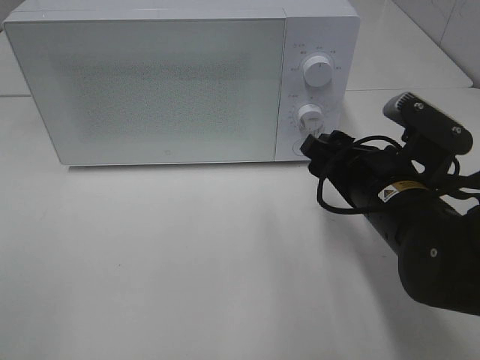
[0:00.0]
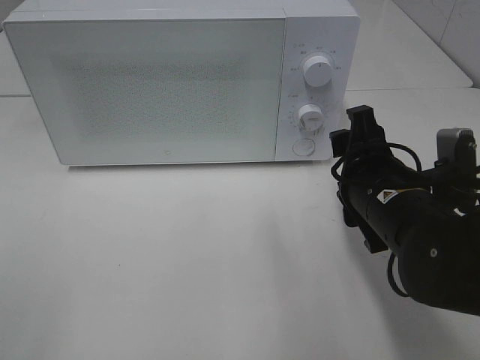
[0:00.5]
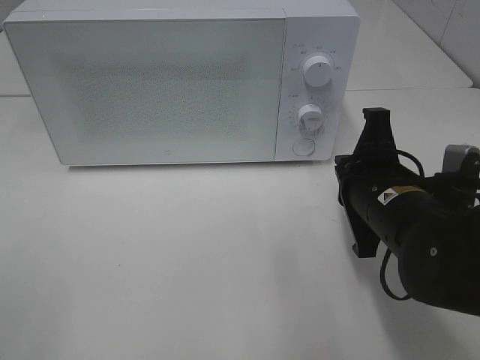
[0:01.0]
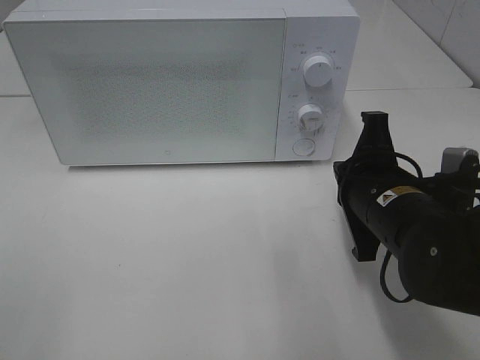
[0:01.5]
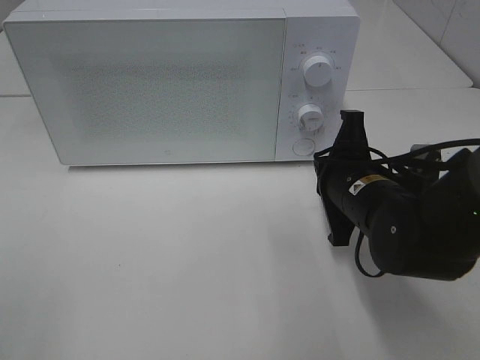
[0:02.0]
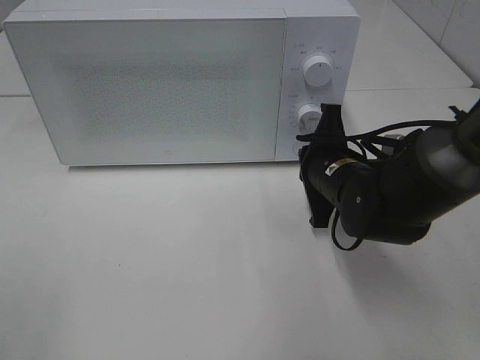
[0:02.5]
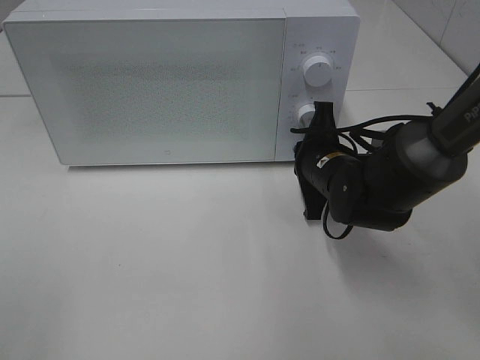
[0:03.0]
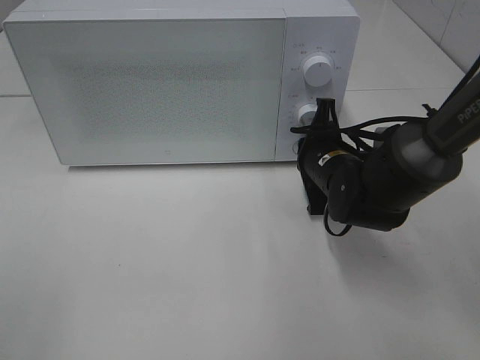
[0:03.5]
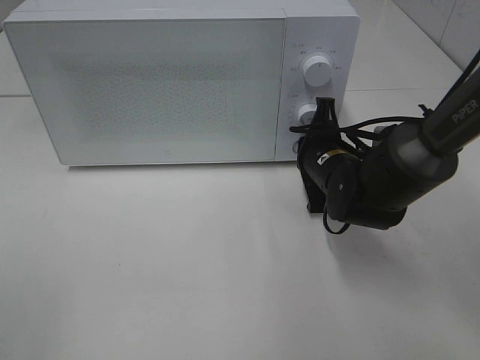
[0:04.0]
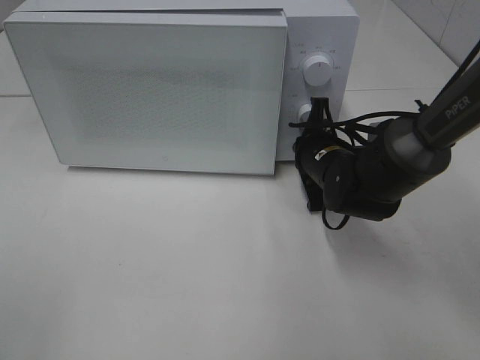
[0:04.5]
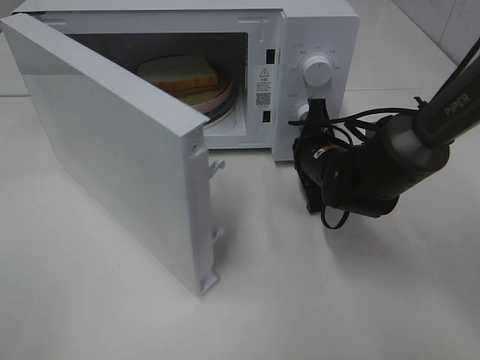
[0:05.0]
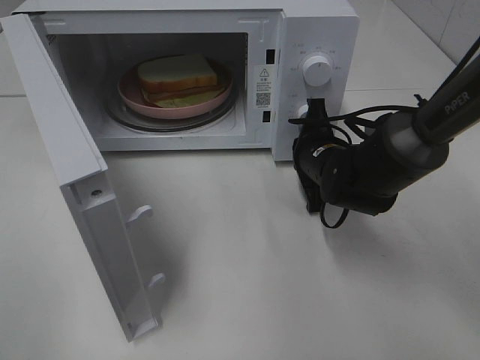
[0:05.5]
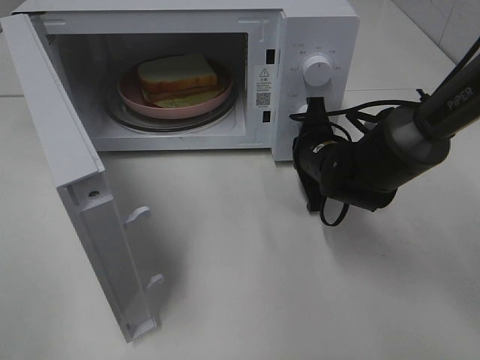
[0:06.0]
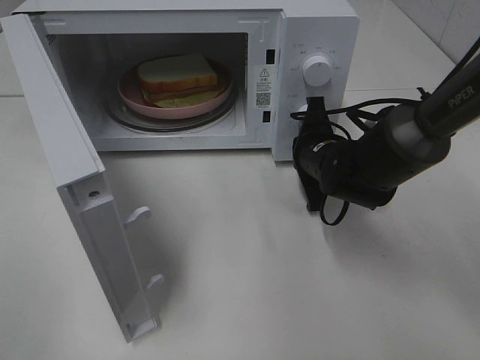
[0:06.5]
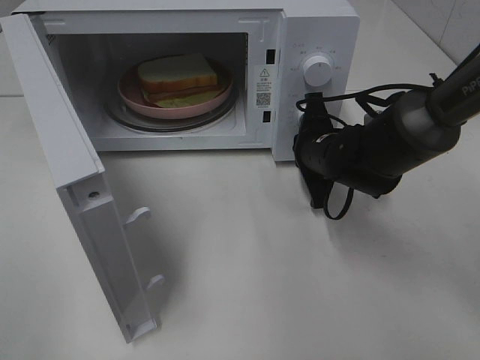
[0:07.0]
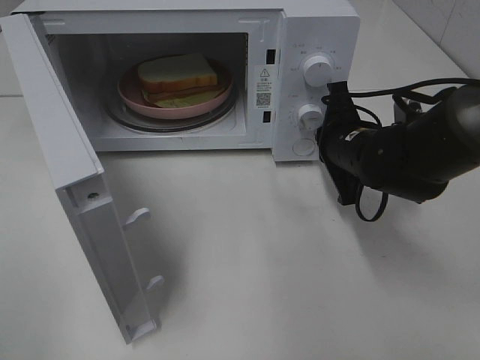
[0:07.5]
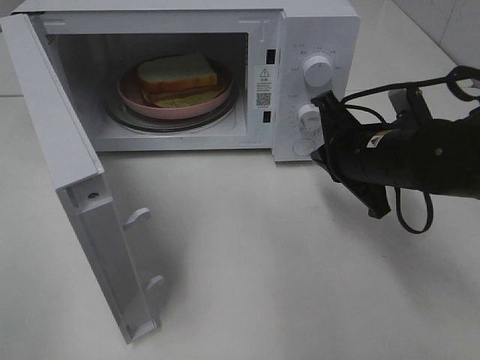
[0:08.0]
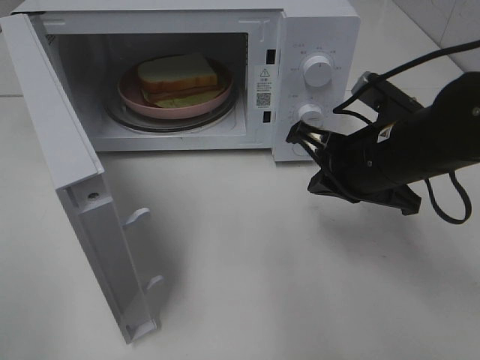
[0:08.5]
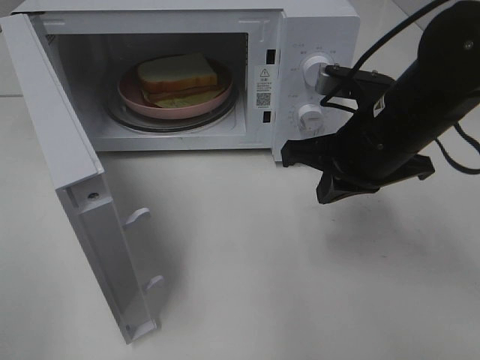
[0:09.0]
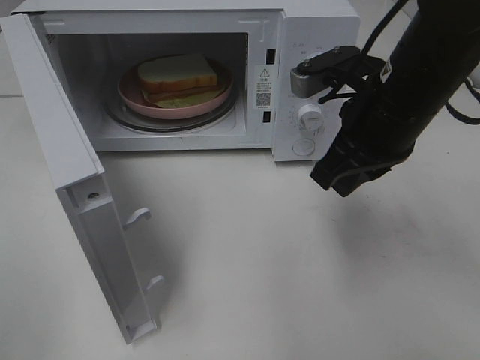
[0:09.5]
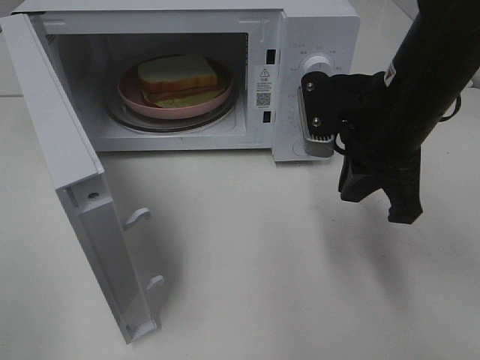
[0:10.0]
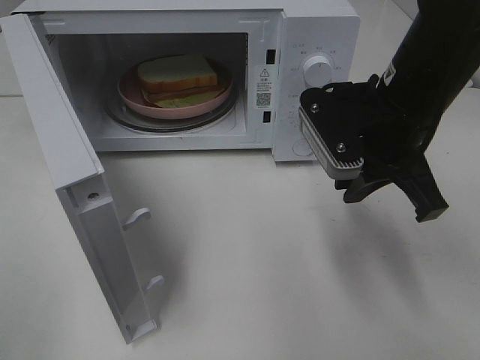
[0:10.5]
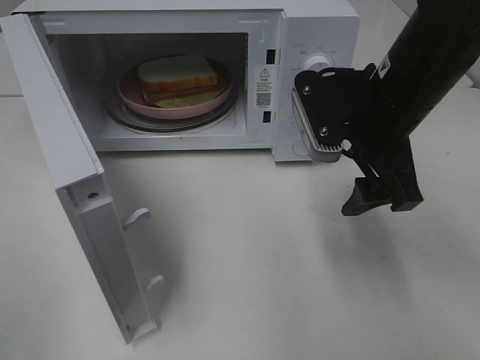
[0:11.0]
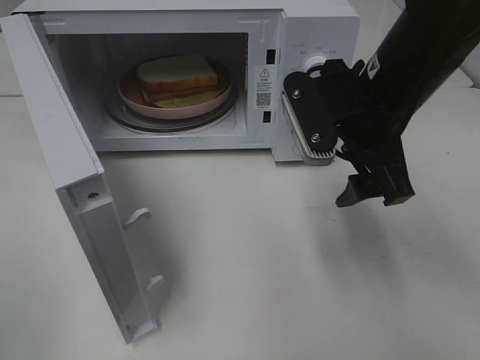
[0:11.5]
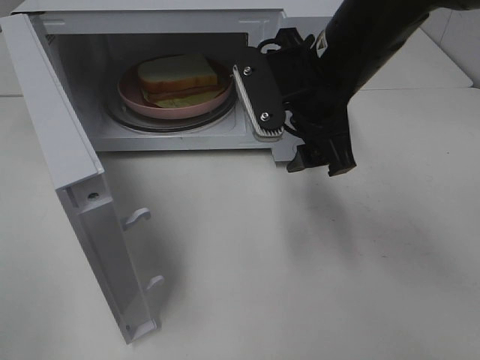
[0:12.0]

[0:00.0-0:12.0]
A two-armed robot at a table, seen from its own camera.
Task of the whole recording: Heat Sandwich.
Step, 0:00.0 to 0:07.5: Right hand: press the switch.
0:00.0 to 0:02.0: The right gripper closes its fingers.
0:02.0 to 0:04.0: The right gripper heads forward, covering roughly 10 cm.
0:06.0 to 0:08.0: The right gripper travels backward and upward by about 10 cm.
0:08.0 to 0:10.0: The right gripper moves upward, roughly 10 cm.
0:10.0 to 0:12.0: The right gripper heads to the left, covering roughly 5 cm, and opens its fingers.

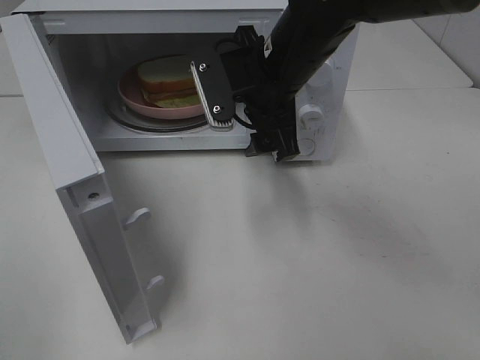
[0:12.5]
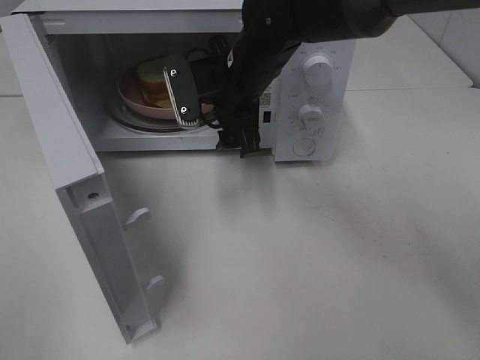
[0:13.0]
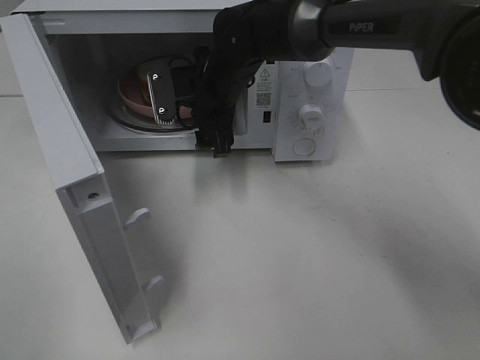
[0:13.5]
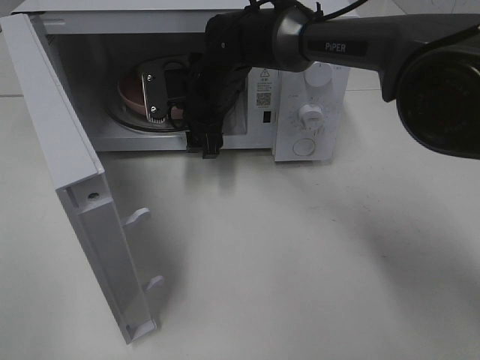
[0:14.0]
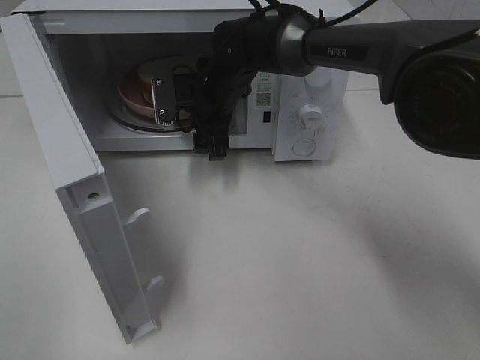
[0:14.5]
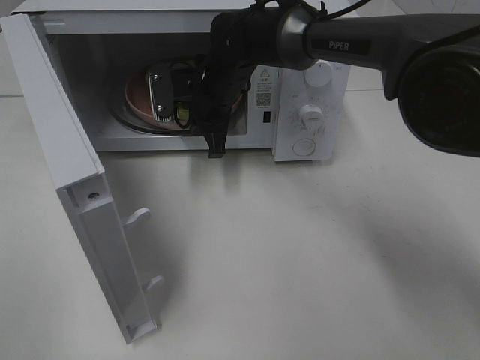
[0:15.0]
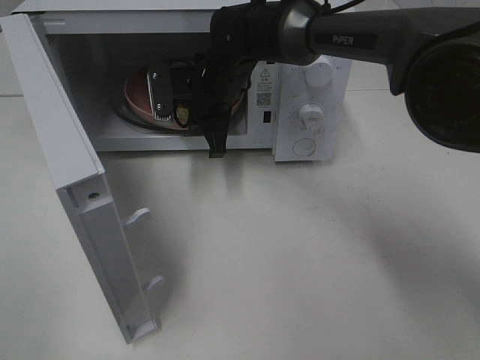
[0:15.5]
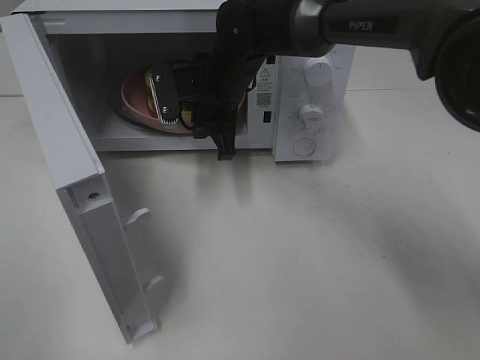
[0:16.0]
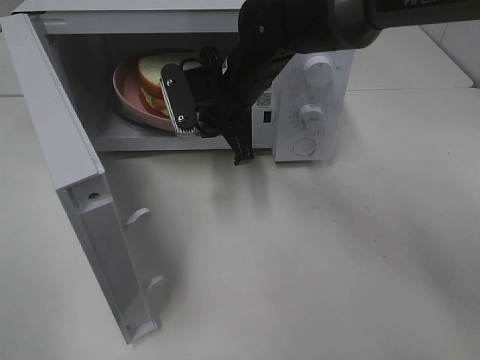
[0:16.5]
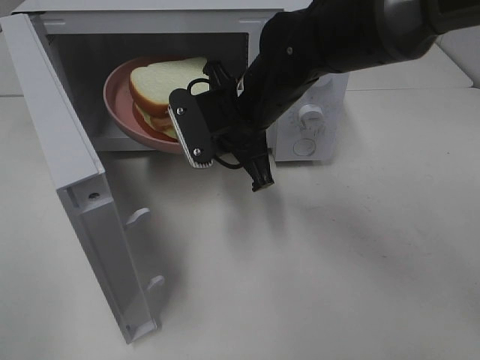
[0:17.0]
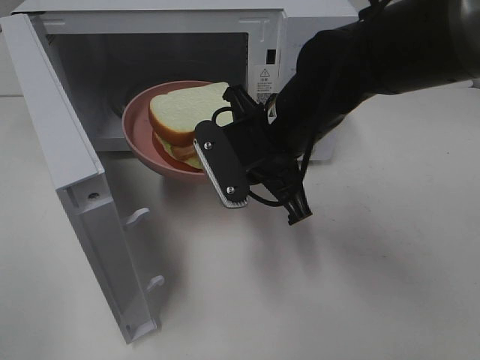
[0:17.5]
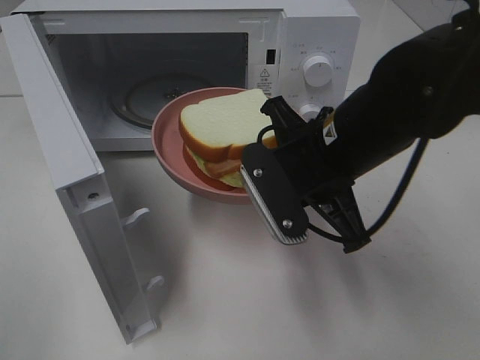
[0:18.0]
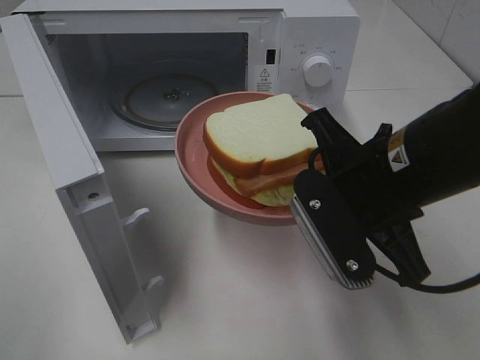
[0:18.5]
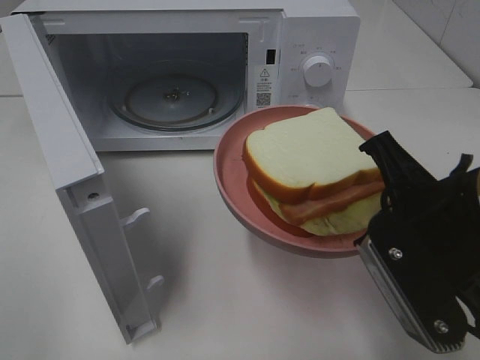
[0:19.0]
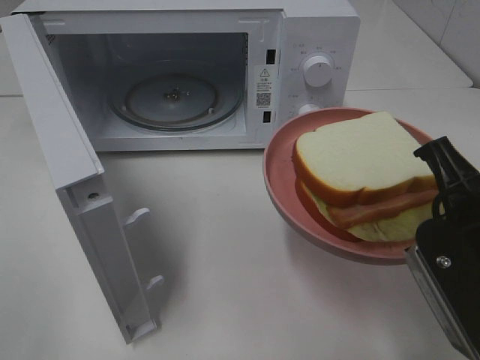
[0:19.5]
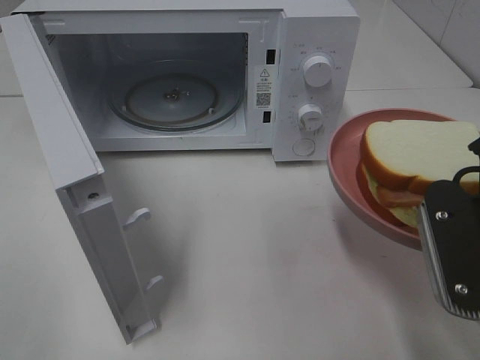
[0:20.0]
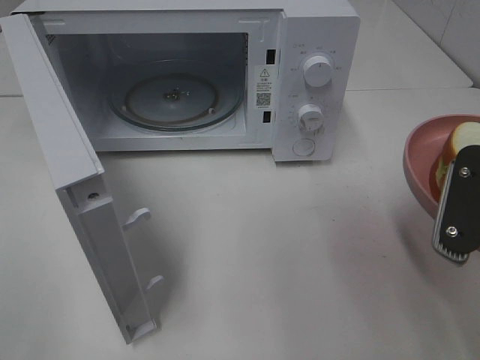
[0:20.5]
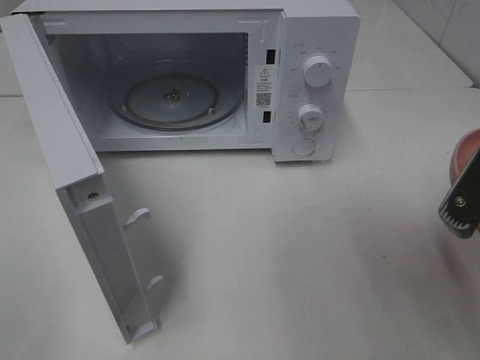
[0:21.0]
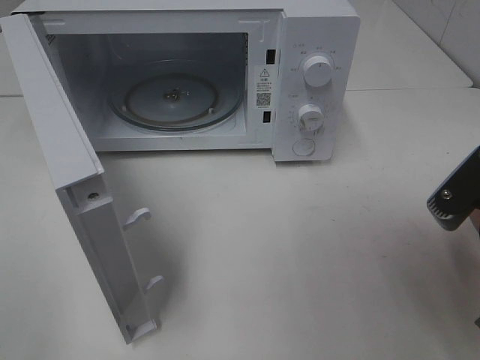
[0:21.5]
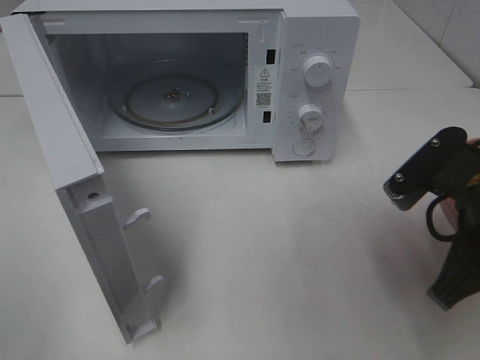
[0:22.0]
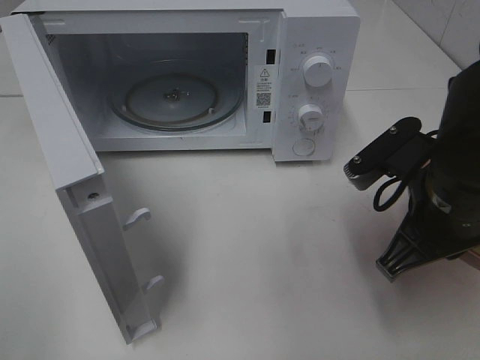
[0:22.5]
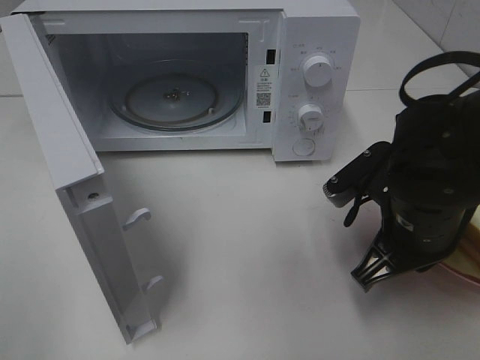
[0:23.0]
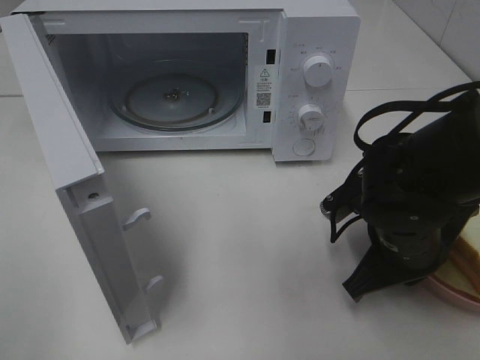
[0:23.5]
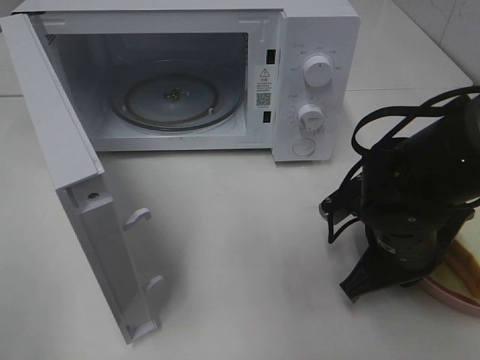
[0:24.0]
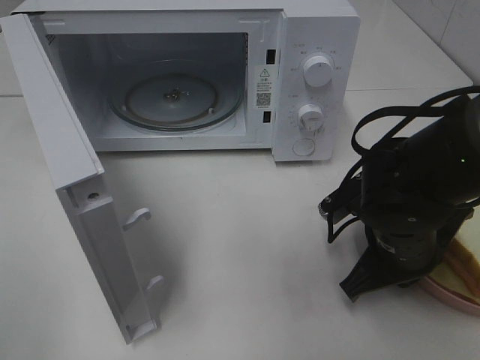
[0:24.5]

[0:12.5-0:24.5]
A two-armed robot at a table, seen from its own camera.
Task of the whole recording: Heat Sandwich.
Step, 0:12.5 to 0:15.0: Right hand: grab the plate with the sandwich.
0:12.5 to 0:14.5: The right gripper moves forward, downward and to the left, approximately 15 cm.
0:14.5 to 0:16.5: The right gripper shifts roughly 5 cm backward, and closes its fingers.
0:16.5 to 0:18.5: The right gripper is displaced backward and to the right by roughly 20 cm.
0:18.5 to 0:20.5: The right gripper travels to the right and backward by approximately 10 cm.
0:20.5 to 0:22.5: The right gripper travels forward by roughly 5 cm.
0:22.5 to 0:24.5: The right gripper goes some 10 cm downward.

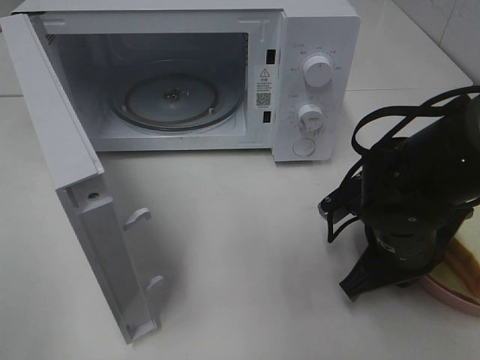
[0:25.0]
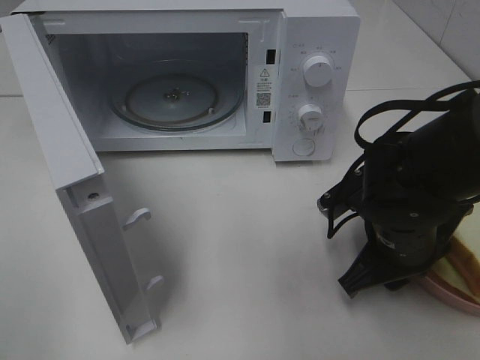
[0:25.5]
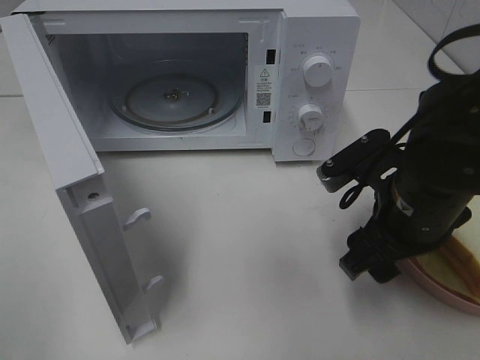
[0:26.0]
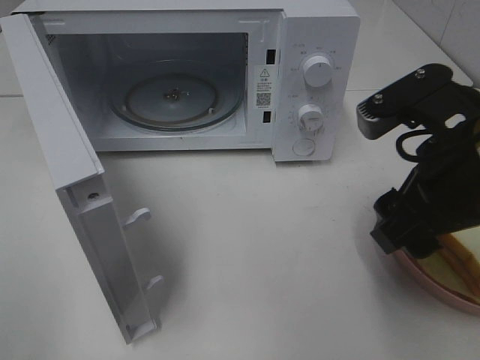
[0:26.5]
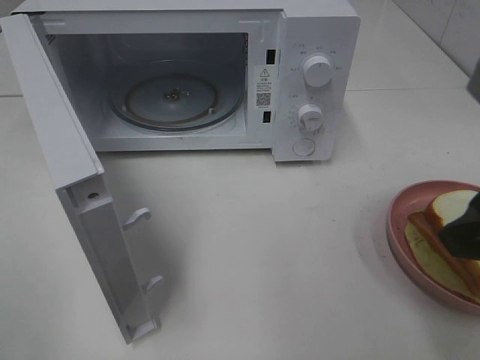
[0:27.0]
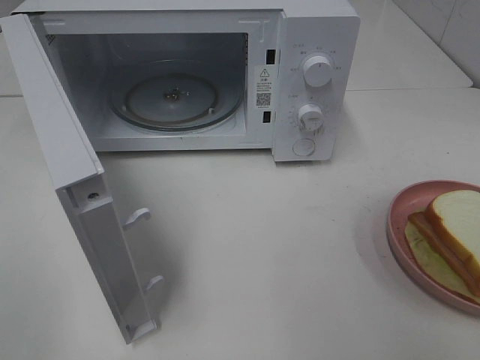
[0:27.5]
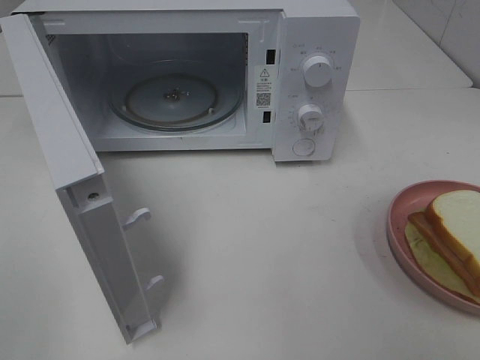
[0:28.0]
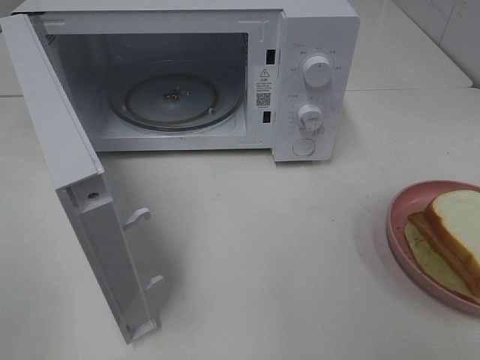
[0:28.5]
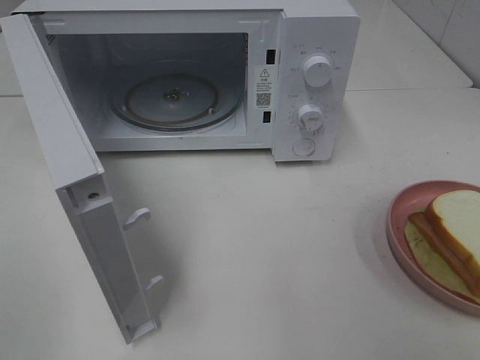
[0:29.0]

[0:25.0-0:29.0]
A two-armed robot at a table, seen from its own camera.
Task of the whole recording: Heat Sandwich.
0:25.0 to 0:27.0: The right gripper shifts some 25 cm upward and backward, and opens up.
0:27.0 to 0:29.0: The right gripper shifts about 15 cm backward and to the right.
